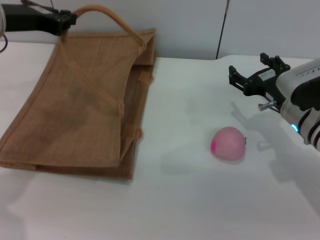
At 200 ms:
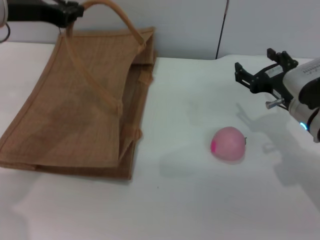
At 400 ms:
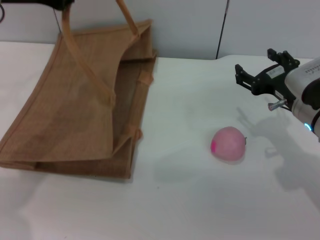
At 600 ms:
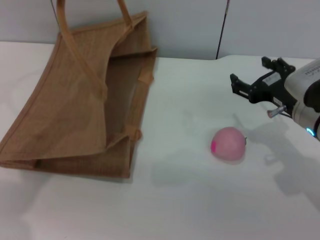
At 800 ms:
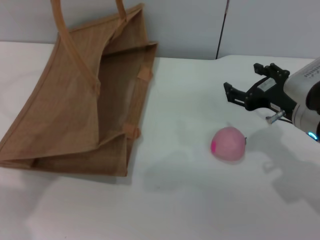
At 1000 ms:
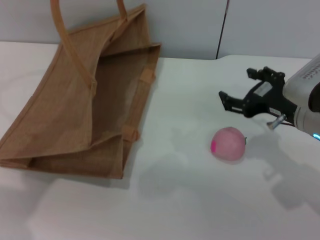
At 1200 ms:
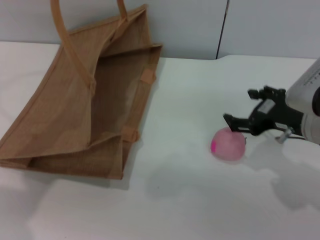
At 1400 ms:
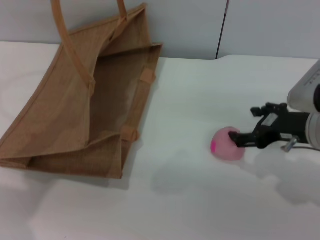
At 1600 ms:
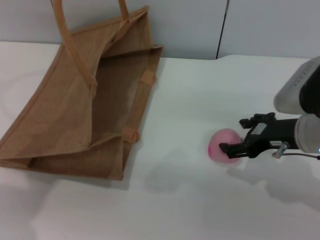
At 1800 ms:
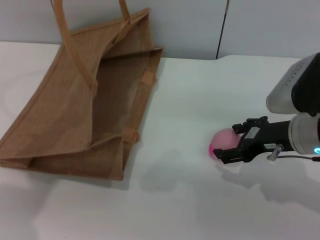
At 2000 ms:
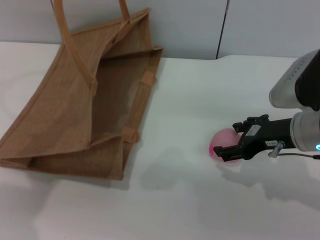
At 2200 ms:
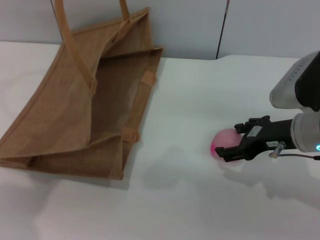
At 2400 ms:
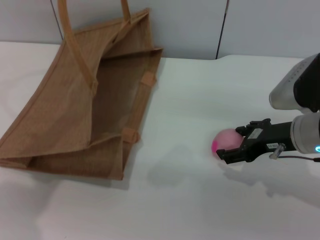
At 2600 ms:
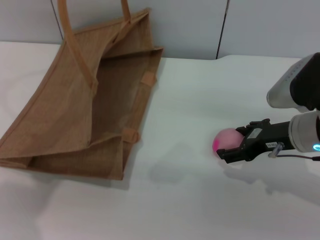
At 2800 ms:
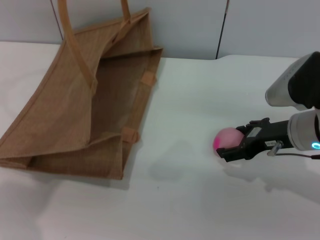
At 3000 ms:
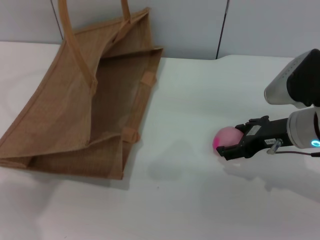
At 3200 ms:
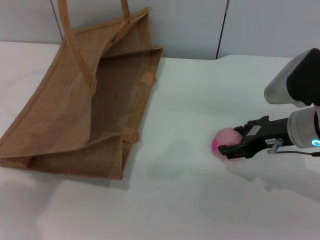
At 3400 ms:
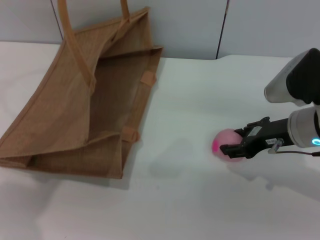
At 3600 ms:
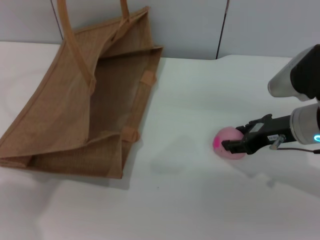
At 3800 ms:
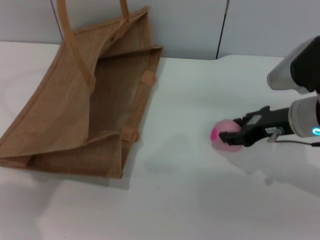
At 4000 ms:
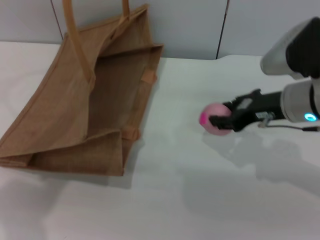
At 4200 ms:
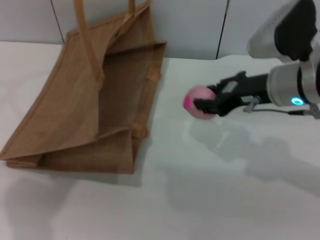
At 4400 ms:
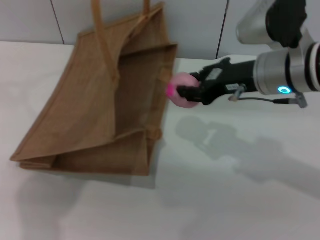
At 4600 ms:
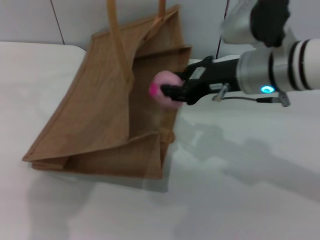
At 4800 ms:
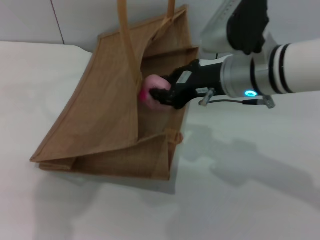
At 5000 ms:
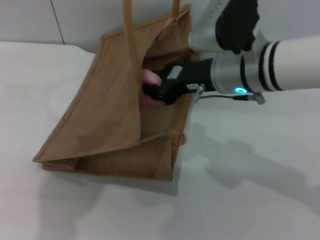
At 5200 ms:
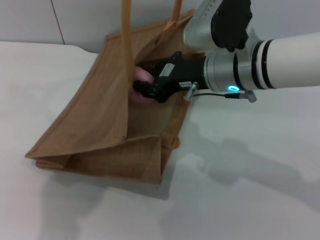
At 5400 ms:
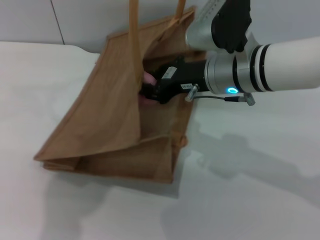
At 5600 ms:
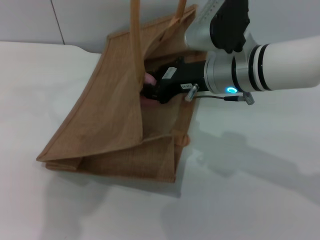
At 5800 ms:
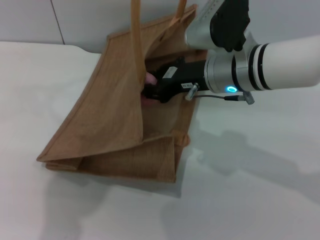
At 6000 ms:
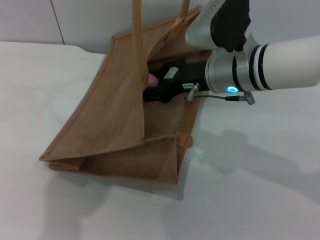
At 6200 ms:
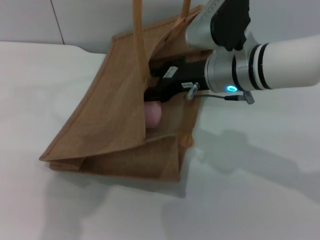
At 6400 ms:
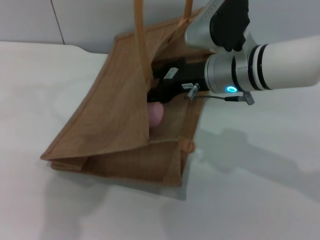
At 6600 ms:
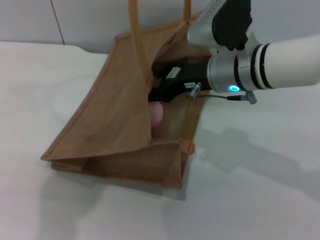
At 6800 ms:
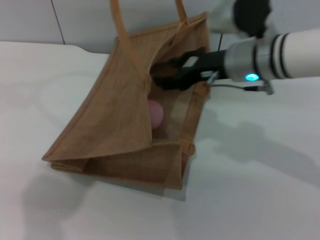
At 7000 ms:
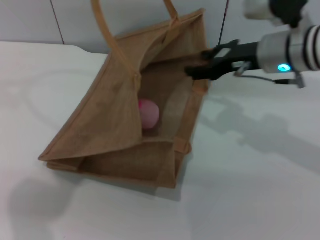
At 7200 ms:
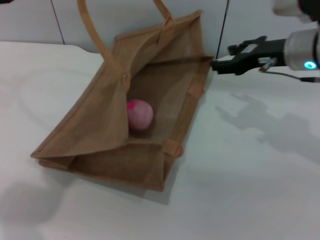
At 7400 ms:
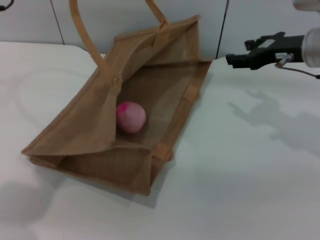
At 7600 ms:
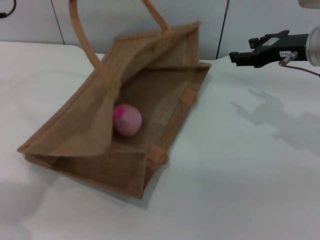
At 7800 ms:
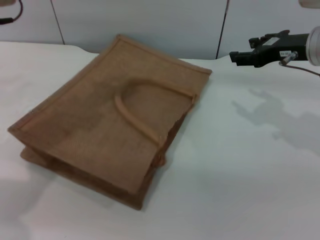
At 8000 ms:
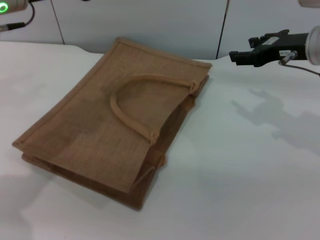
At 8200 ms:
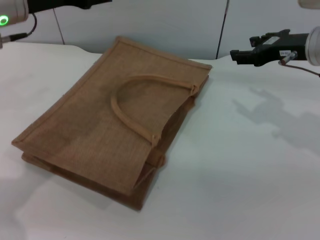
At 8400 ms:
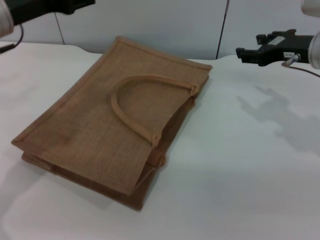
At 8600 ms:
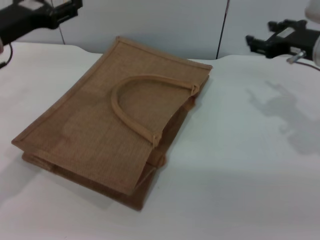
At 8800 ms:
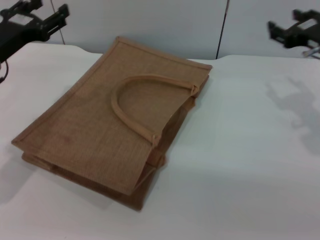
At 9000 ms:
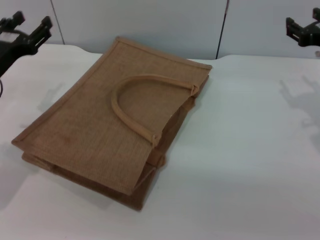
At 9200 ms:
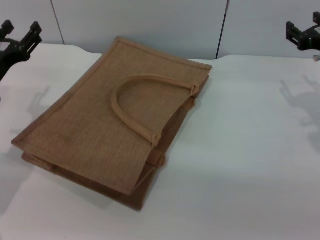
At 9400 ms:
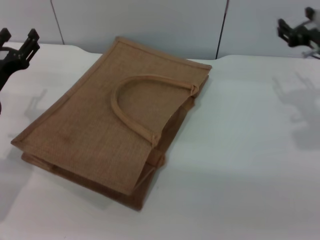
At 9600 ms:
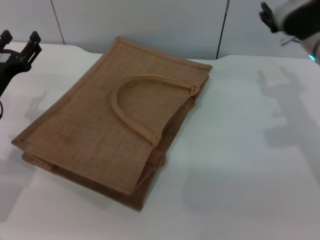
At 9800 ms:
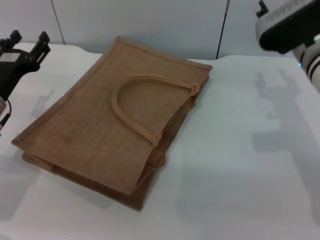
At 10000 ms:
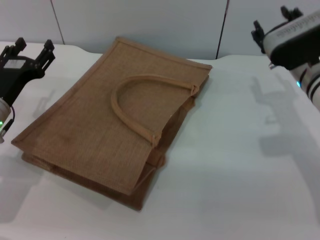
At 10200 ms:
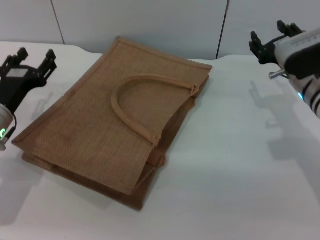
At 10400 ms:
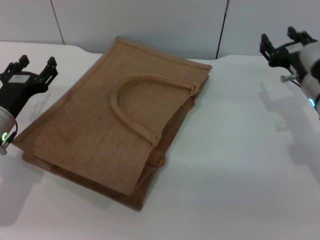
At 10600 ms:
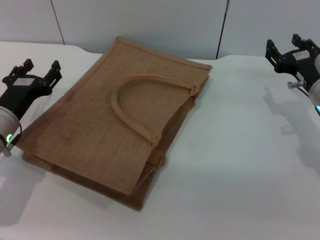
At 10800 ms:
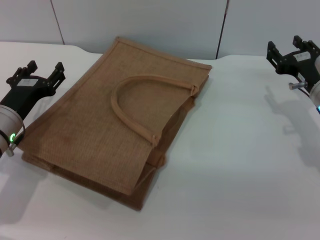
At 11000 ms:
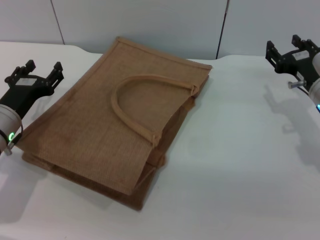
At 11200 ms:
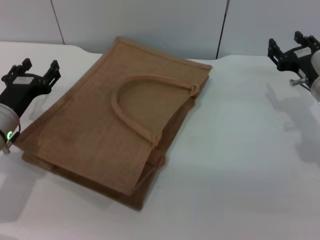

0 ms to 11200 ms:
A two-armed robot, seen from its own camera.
Task of the whole recording: pick up the peach from the table and place it in the brown handbag.
Step, 0 ms to 4200 ms: Pick up the peach with the right gripper.
Step, 4400 ms to 7200 ms: Place the peach into the woven bag with the right gripper.
Step, 7400 ms to 8000 ms: Lower the woven bag with the left gripper to close it.
0 ms to 1600 ms: The right gripper ends up approximately 5 cm from where it was. Meanwhile the left gripper travels upward by approximately 10 cm.
1600 ms to 3200 ms: The grippers make only small movements.
3200 ms to 4800 ms: The left gripper goes roughly 10 cm to the right. The right gripper goes some 10 cm to the left and upward, and closes.
4800 ms to 6400 ms: The right gripper opens its fingers.
6400 ms to 8000 ms: The left gripper goes some 10 cm to the left and downward, while the right gripper shifts some 15 cm to the right.
8000 ms to 9600 ms: The left gripper moves downward, roughly 20 cm, and opens.
9600 ms to 11200 ms: The right gripper goes approximately 10 cm downward.
